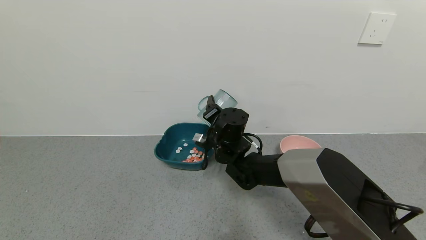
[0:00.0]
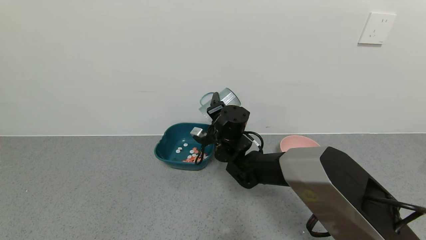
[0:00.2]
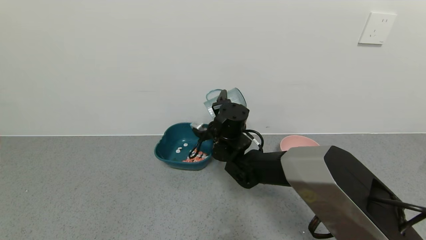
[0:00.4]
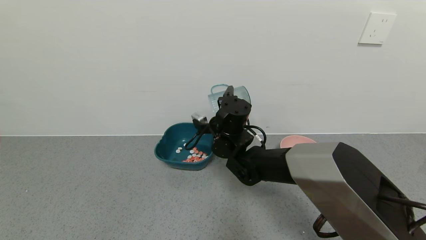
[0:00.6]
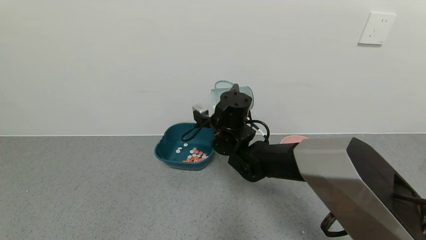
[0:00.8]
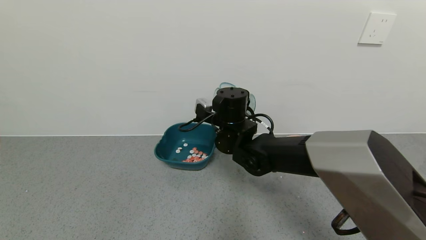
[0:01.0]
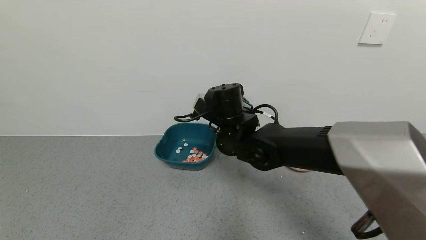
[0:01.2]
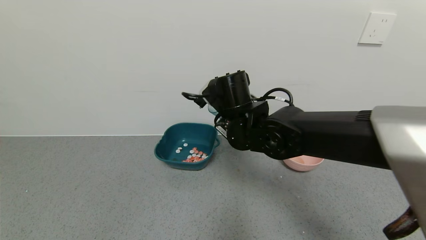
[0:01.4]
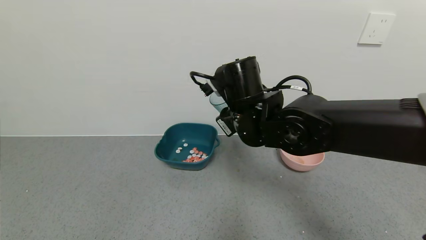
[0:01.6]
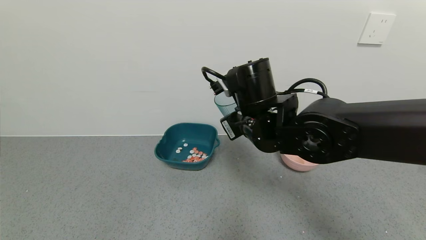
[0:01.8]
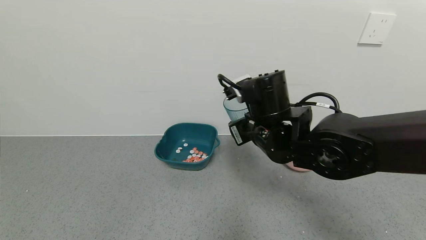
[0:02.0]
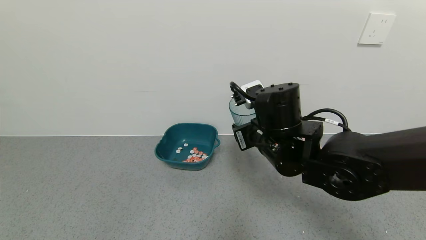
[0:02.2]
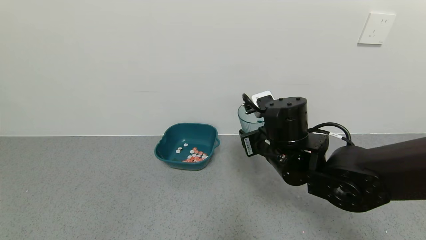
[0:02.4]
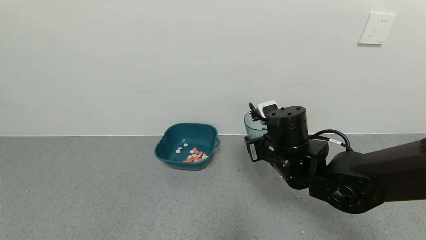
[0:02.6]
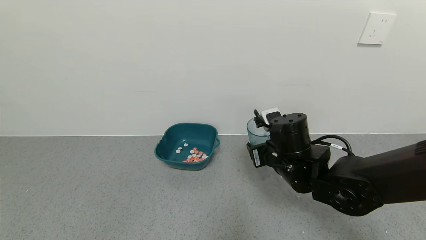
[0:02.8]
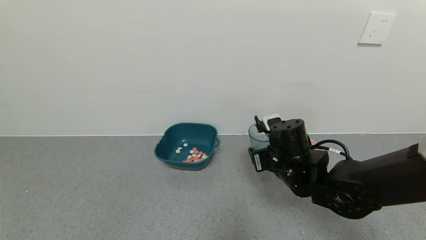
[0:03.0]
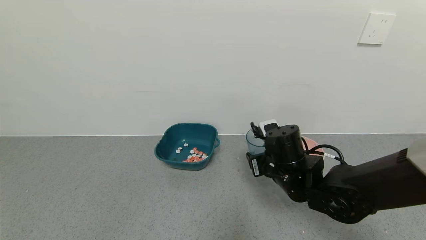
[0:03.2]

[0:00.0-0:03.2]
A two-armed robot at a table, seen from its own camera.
Task of the whole recording: use a gripper to pick up the cup and pour the solid into a bowl or tray.
Step, 0:01.0 to 0:03.0: Place the glass cup with the right gripper.
0:00.0 to 0:01.6: The right gripper heads upward and backward, covering about 15 cm.
0:01.6 to 0:03.2: The right gripper is displaced downward and to the right by roughly 15 cm.
